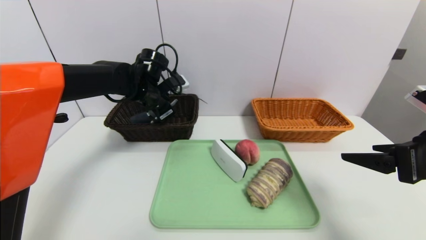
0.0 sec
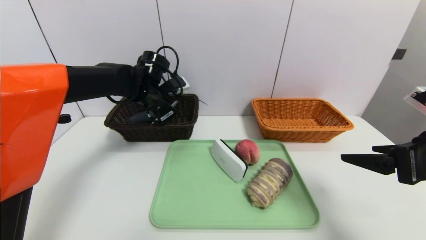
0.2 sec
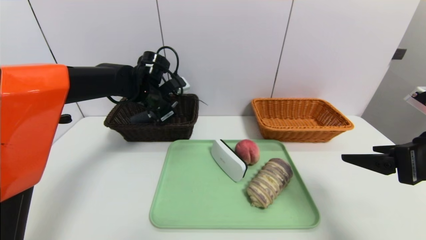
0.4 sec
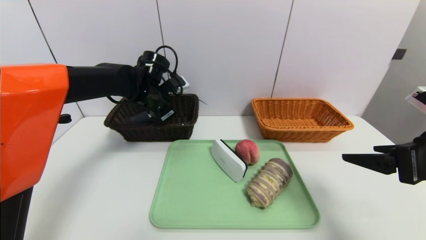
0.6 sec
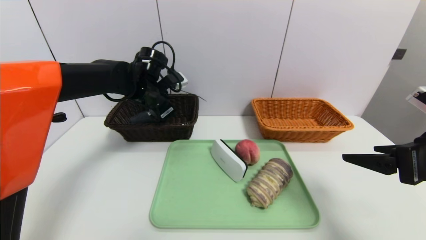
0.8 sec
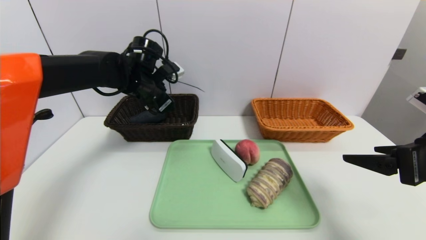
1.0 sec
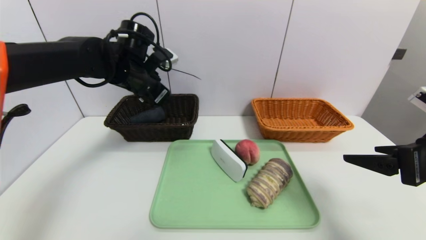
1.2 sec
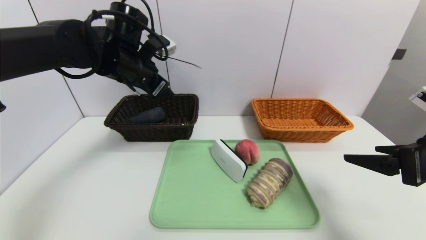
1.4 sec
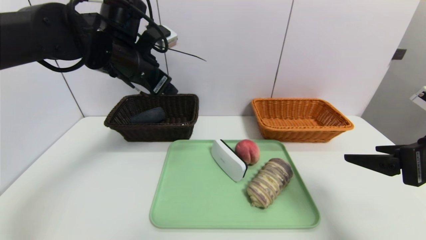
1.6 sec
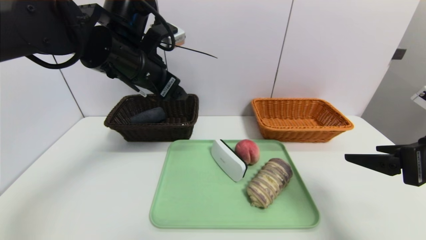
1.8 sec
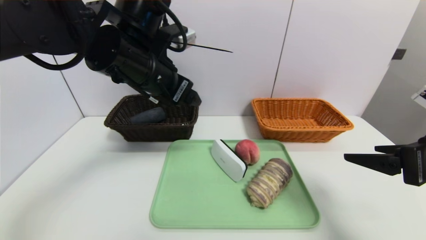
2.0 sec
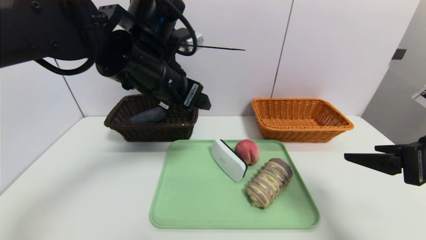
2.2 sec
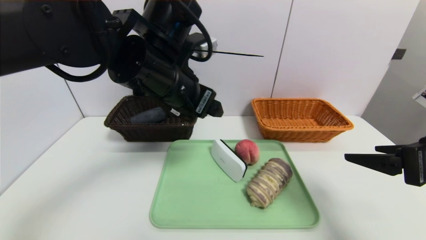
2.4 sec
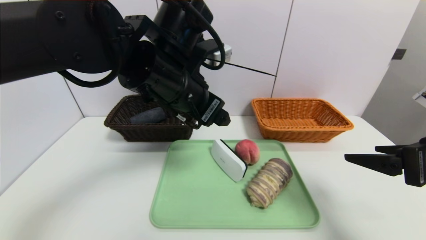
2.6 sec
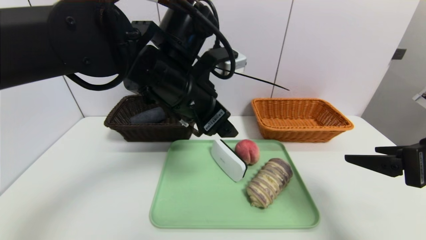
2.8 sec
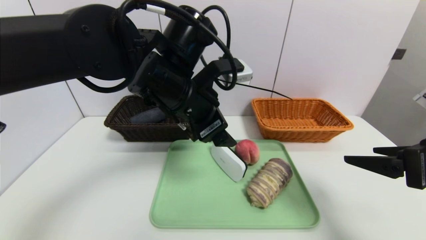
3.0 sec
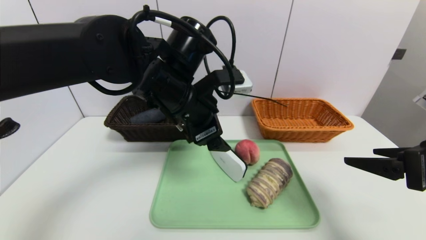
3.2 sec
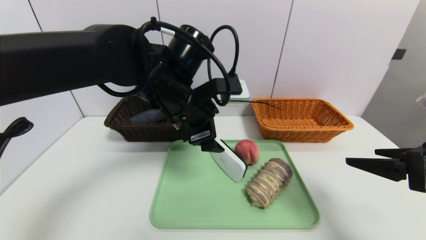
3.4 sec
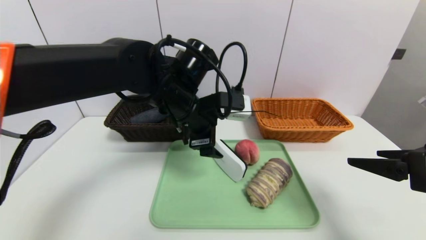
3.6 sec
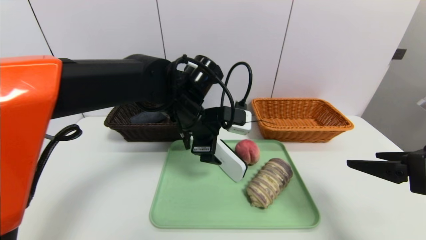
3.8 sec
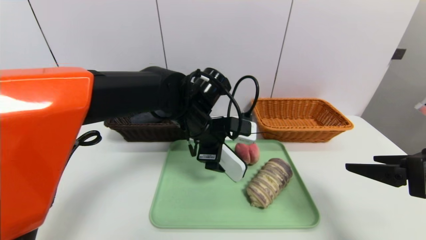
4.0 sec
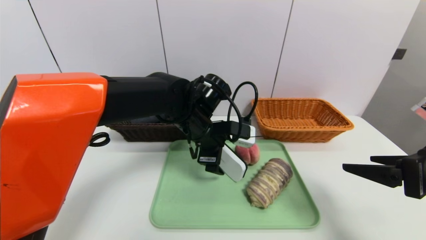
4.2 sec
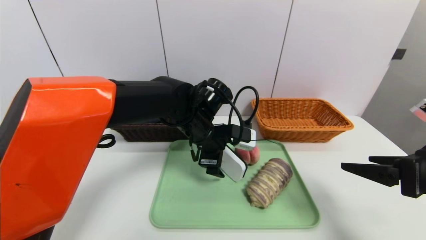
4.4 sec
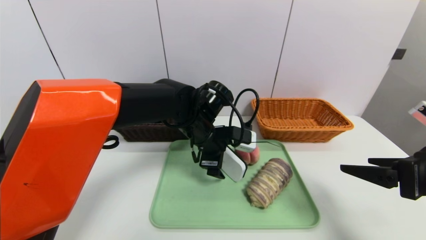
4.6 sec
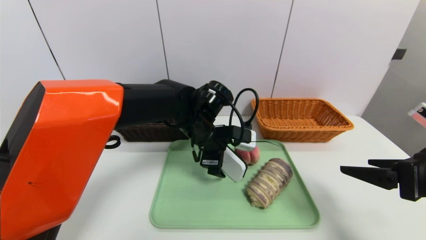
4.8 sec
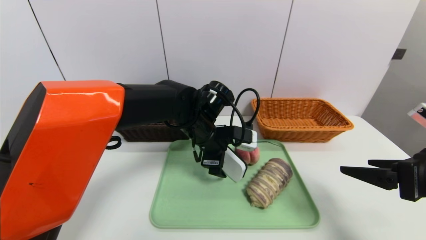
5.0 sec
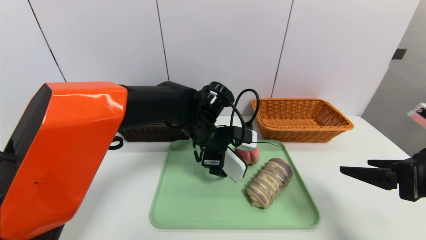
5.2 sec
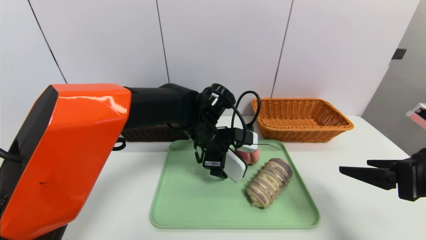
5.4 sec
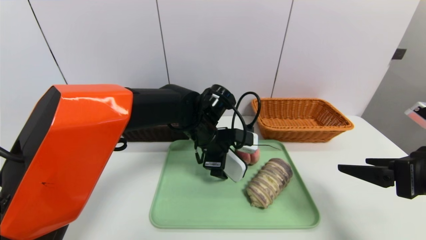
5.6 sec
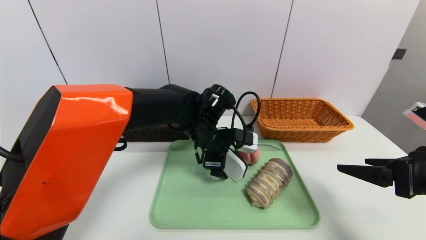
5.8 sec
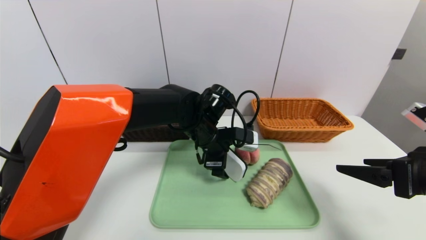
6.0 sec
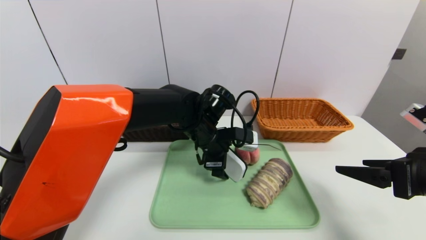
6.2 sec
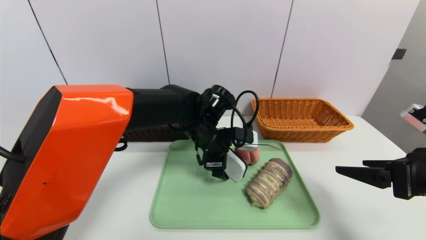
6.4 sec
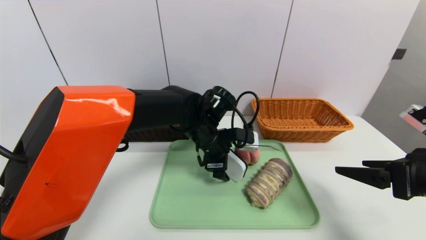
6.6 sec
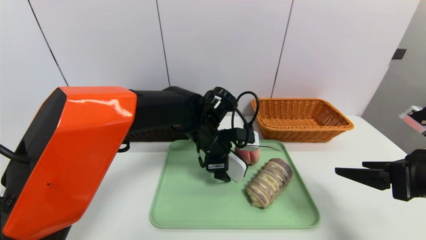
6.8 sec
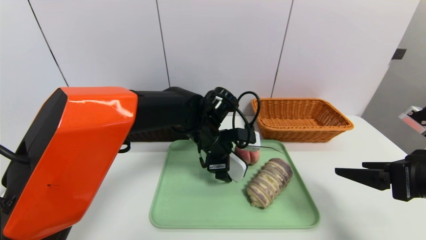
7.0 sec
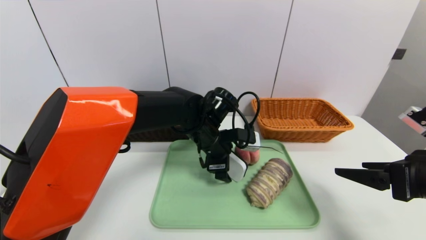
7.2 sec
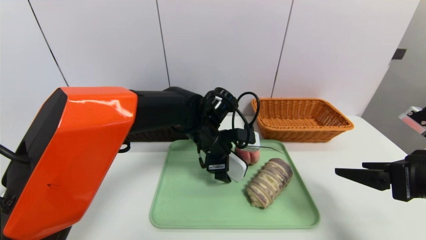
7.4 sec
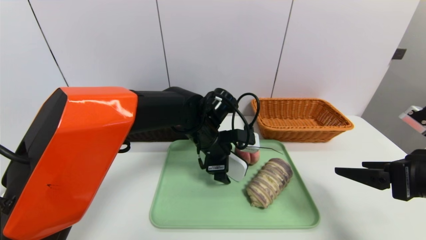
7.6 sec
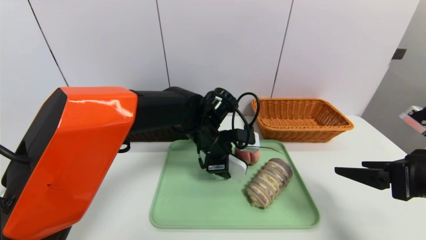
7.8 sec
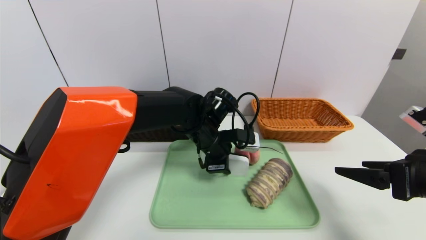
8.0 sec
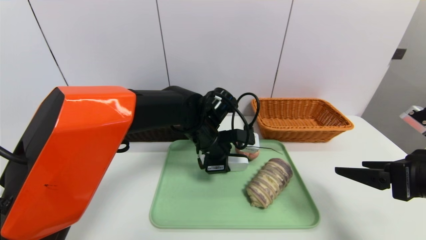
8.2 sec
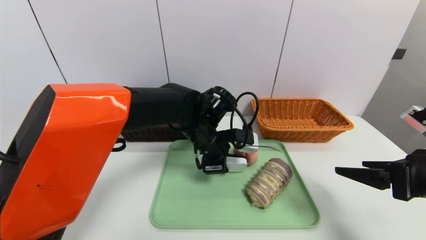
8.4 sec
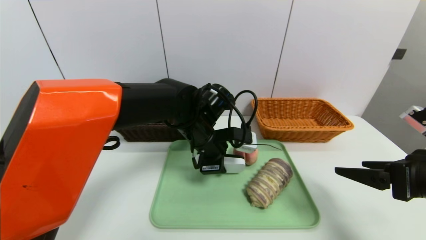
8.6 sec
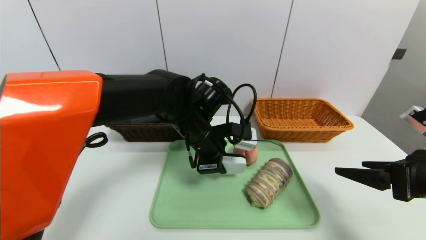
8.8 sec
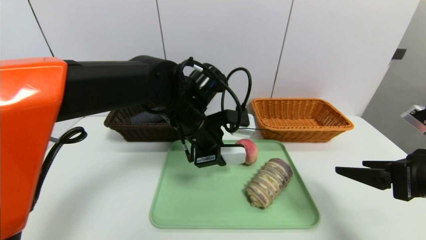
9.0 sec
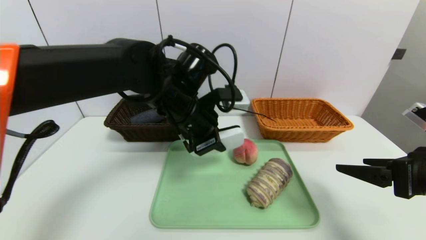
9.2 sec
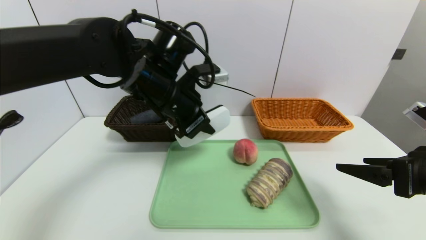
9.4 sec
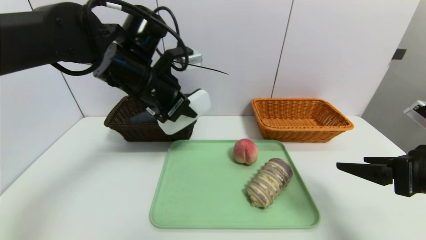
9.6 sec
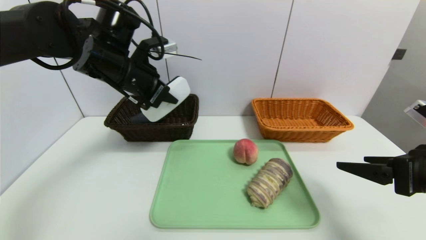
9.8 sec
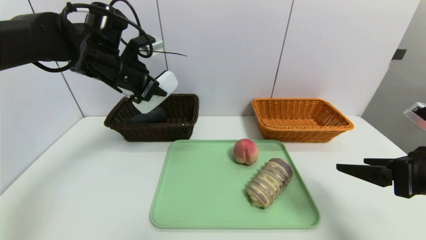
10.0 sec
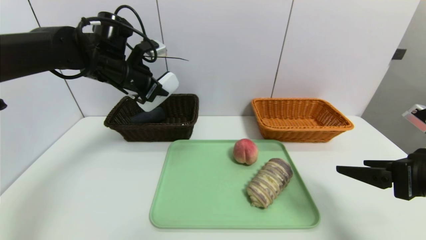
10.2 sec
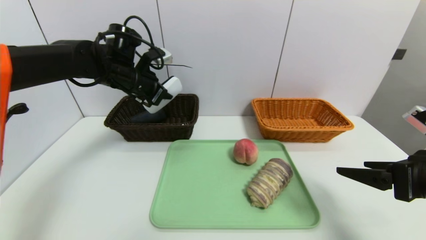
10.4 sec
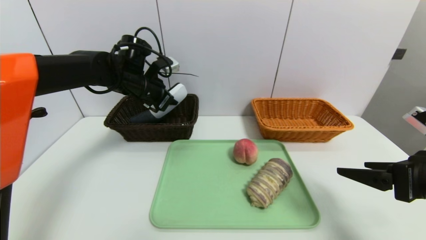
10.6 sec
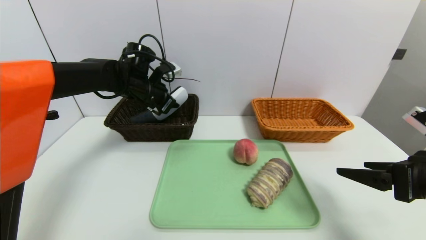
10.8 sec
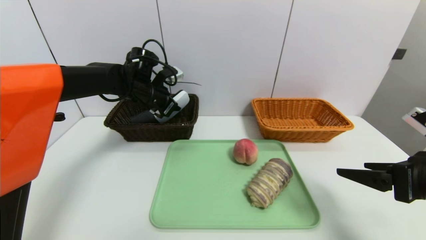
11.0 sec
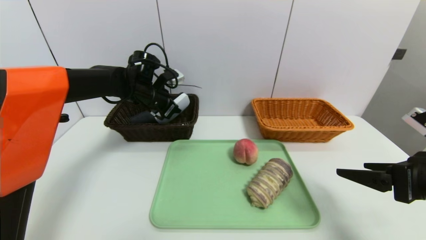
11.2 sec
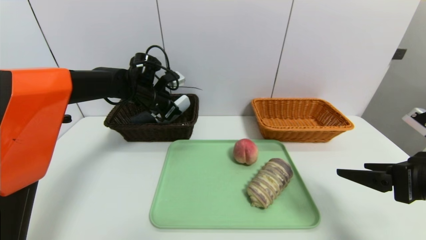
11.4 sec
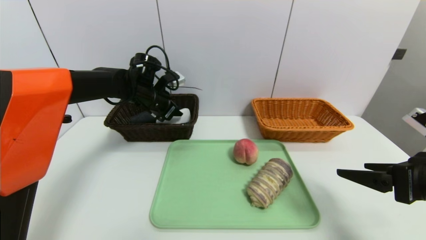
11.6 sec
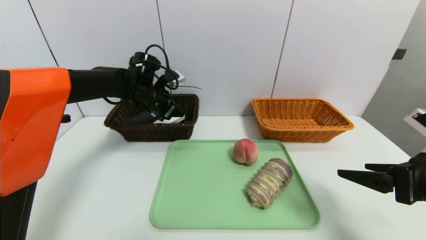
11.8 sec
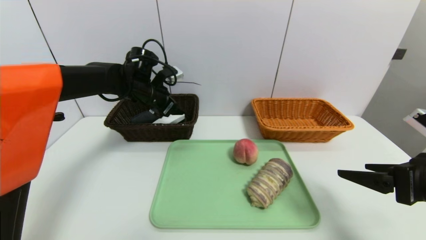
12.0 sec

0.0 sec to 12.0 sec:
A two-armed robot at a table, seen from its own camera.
Task of the whole recording: place the food in the right basket with the right gripper, and place the non food items in the left basket with the left gripper.
0.0 sec to 1.6 sec: The left gripper is displaced upward and backward by some 15 cm, and opens.
1.6 sec to 3.0 sec: The left gripper goes some 10 cm to the right and backward.
3.0 sec to 4.4 sec: The left gripper shifts about 10 cm downward and forward.
4.4 sec to 7.6 sec: There are only small adjustments of the grippers.
7.6 sec to 9.0 sec: The left gripper travels upward by approximately 5 cm, and closes up.
9.0 sec to 10.4 sec: The left gripper moves to the left and forward, approximately 20 cm.
10.4 sec to 12.0 sec: The left gripper moves some 5 cm, and opens up.

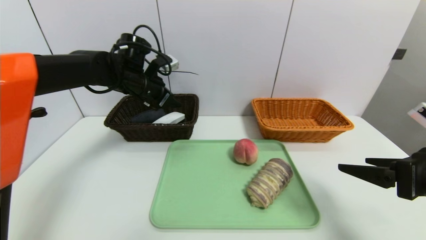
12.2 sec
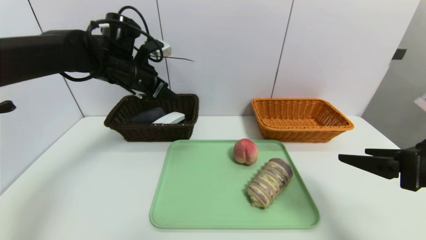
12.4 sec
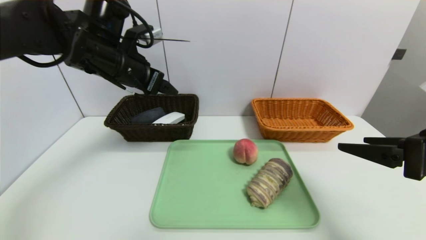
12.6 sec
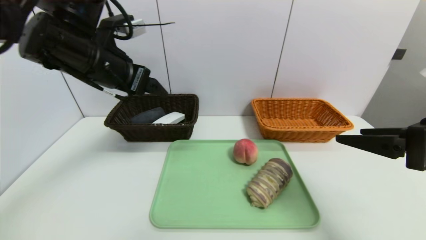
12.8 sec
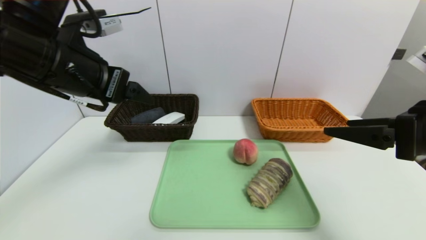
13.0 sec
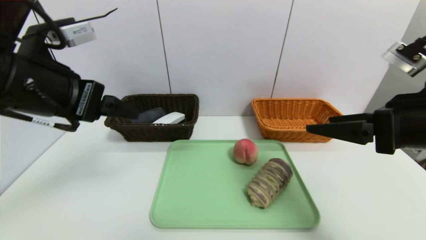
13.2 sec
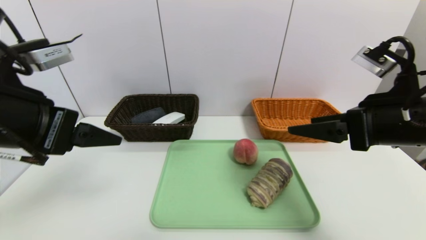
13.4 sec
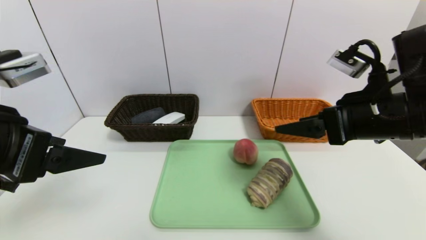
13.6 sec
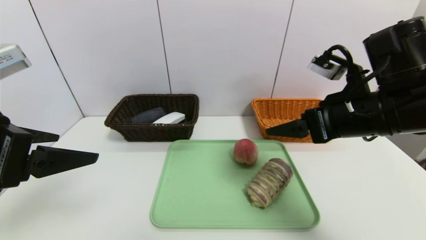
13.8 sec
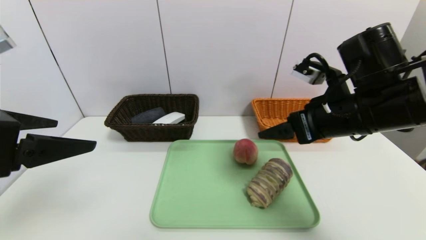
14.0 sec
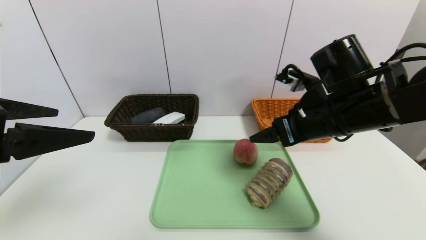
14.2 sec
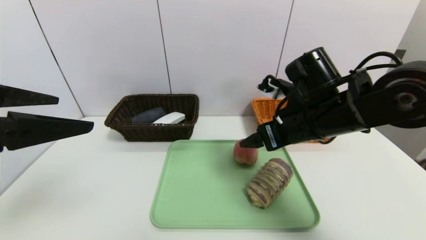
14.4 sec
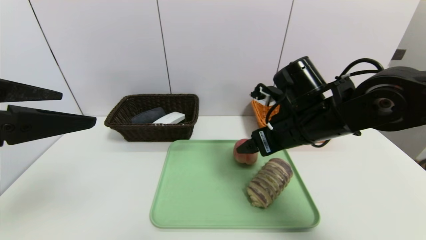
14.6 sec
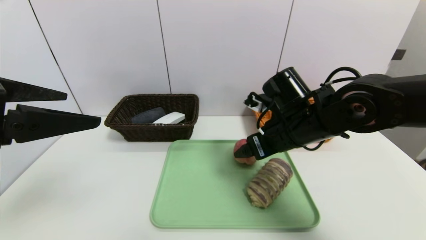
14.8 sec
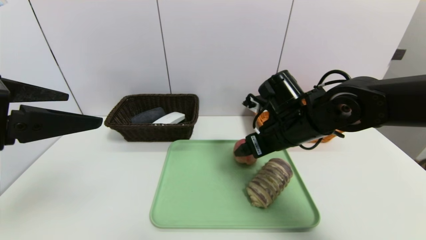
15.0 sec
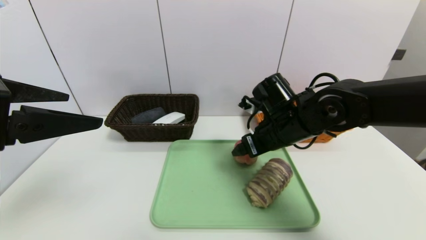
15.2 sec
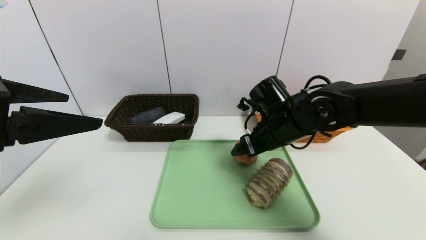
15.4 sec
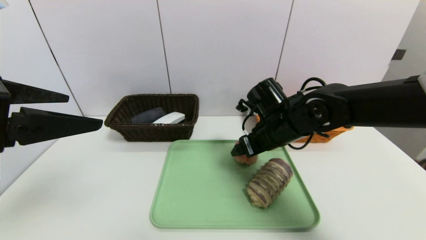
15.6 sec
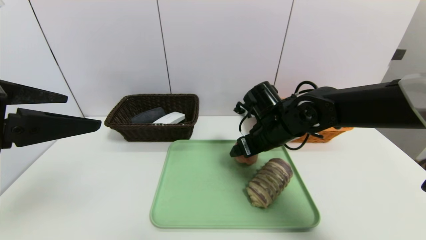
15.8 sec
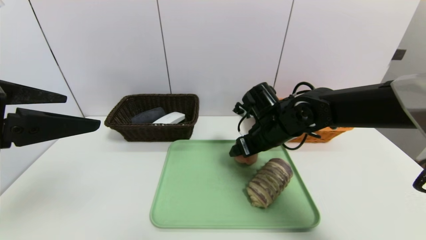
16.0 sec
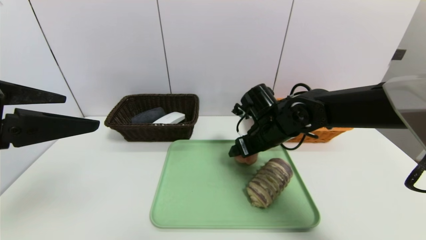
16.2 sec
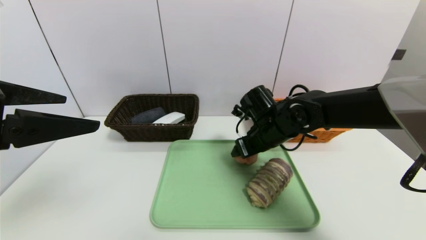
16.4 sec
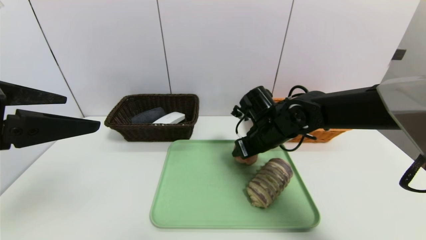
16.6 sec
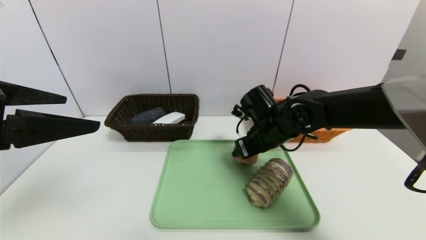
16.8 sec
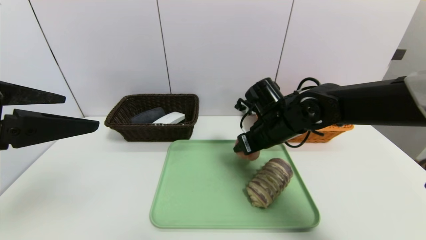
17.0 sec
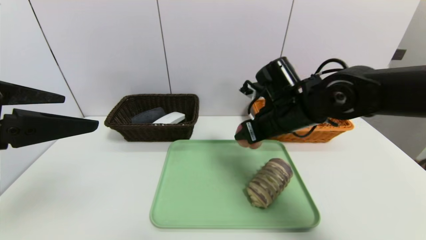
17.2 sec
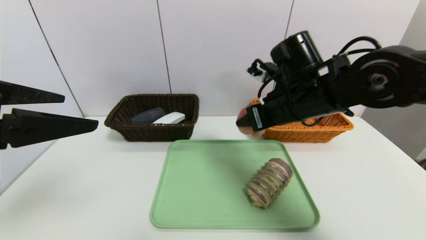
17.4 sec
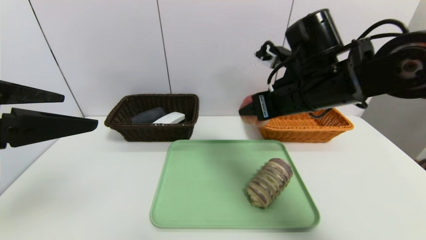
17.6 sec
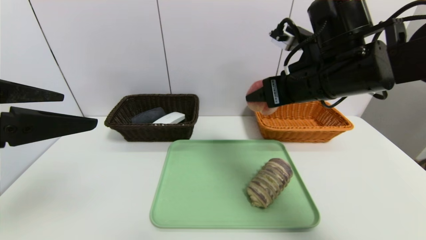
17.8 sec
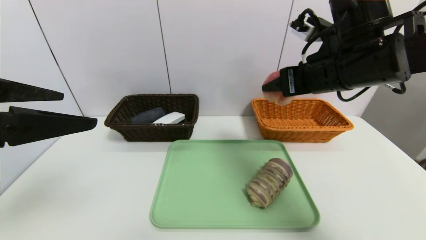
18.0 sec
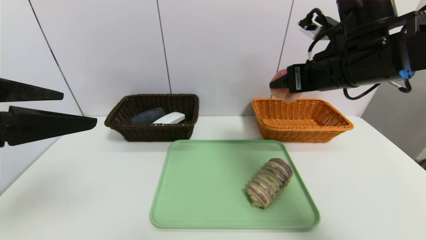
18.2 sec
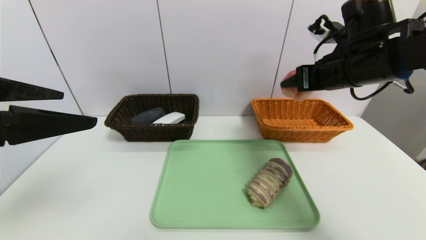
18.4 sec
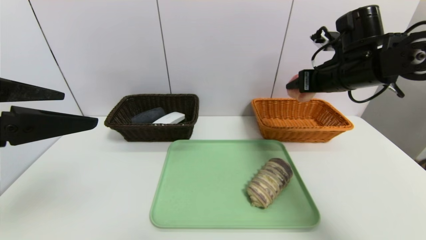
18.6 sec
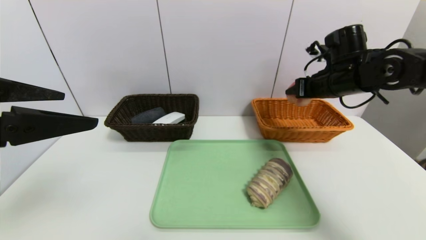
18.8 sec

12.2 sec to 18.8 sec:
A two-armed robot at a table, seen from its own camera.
Task of the whole recording: place the food in the right basket with the right gripper, and place the non food items in the left basket with the left gripper.
12.2 sec to 13.8 sec: The right gripper shifts about 15 cm to the left, forward and upward. Meanwhile the left gripper travels backward by approximately 30 cm.
13.8 sec to 15.4 sec: The right gripper heads forward, downward and to the left, covering approximately 15 cm.
15.4 sec to 17.2 sec: The right gripper closes.
17.2 sec to 18.8 sec: The right gripper heads to the right and forward, covering about 15 cm.
